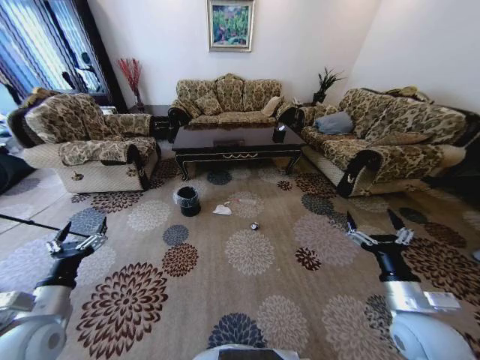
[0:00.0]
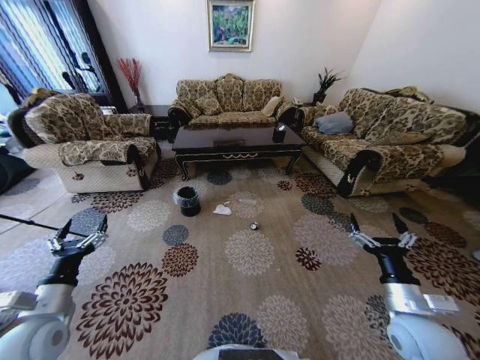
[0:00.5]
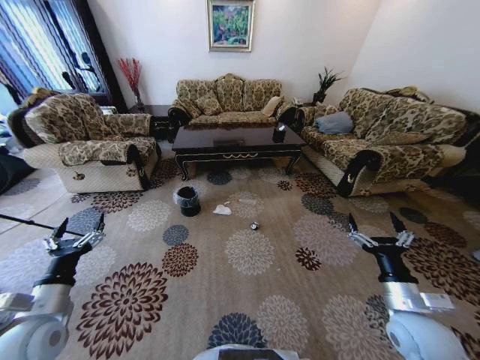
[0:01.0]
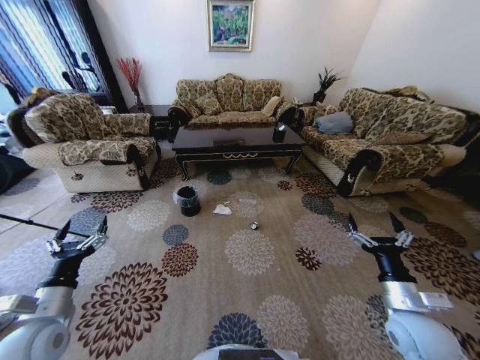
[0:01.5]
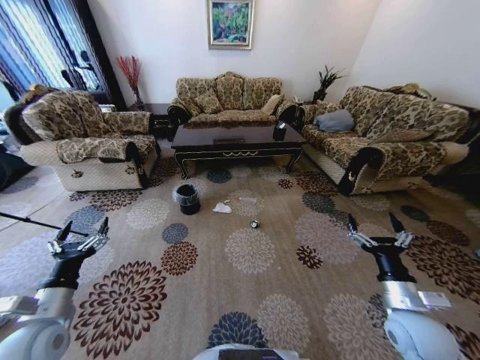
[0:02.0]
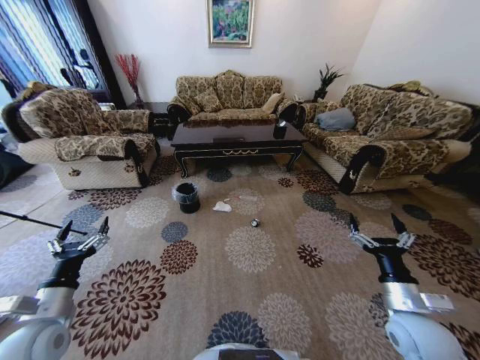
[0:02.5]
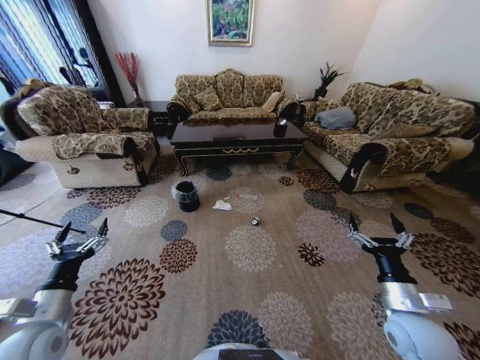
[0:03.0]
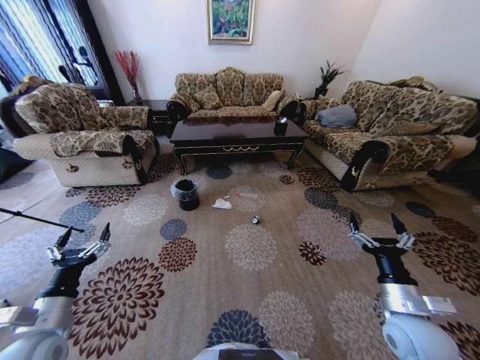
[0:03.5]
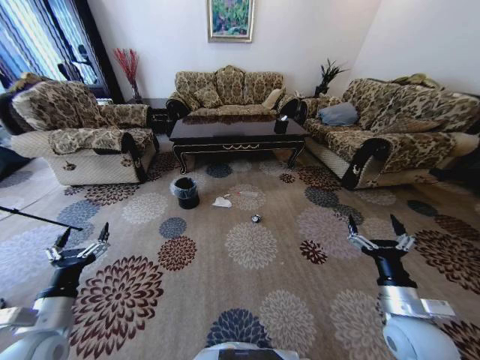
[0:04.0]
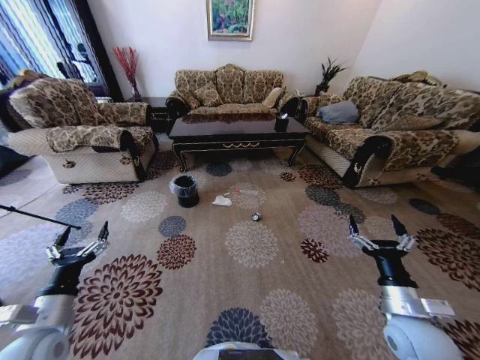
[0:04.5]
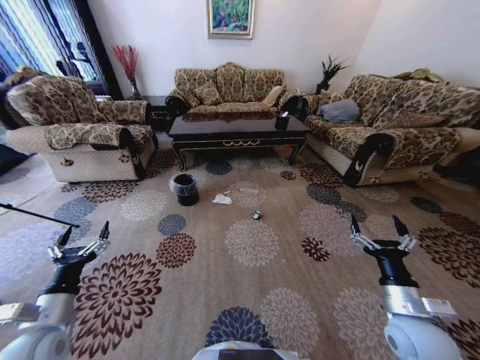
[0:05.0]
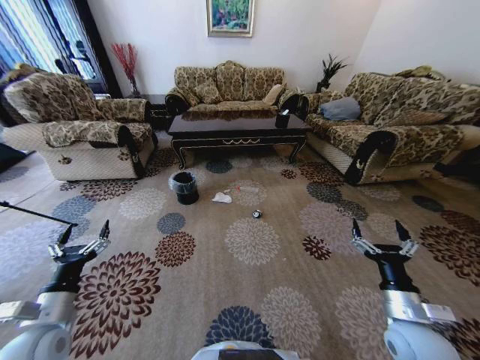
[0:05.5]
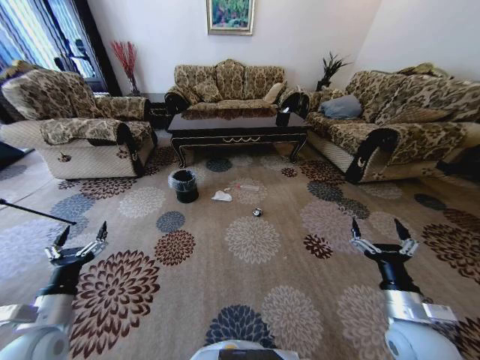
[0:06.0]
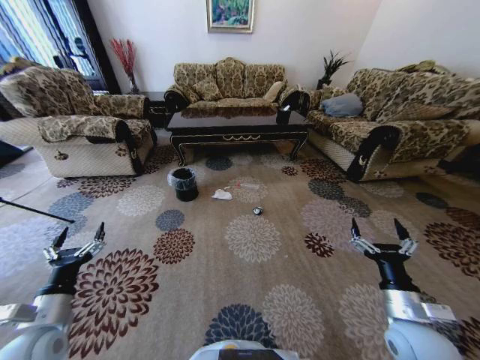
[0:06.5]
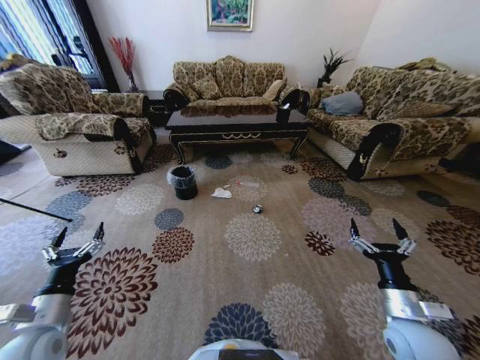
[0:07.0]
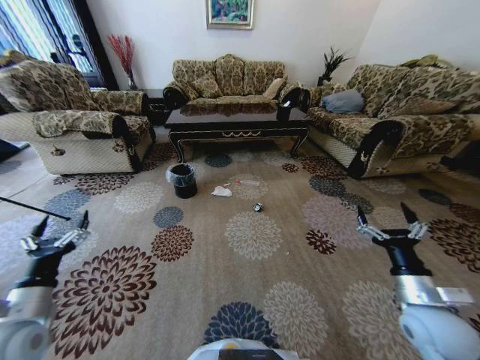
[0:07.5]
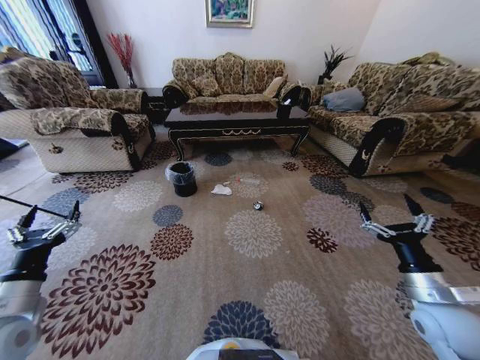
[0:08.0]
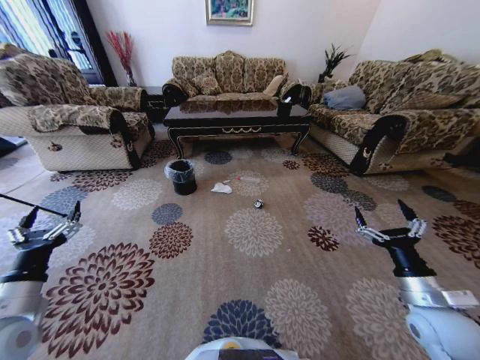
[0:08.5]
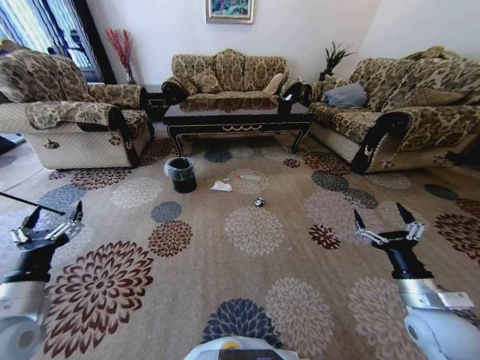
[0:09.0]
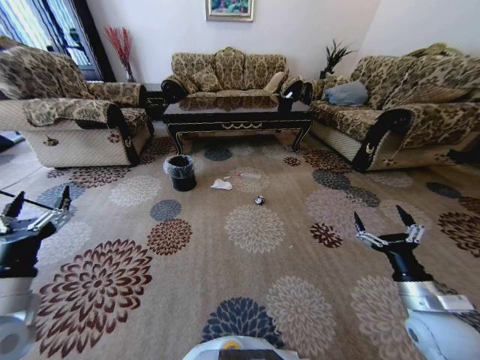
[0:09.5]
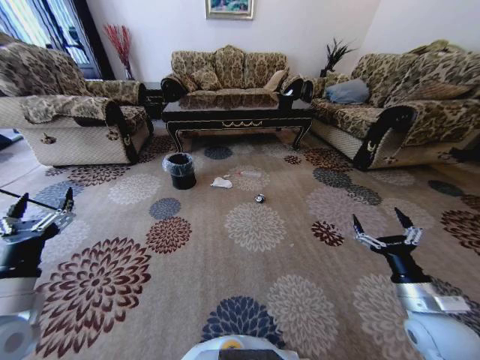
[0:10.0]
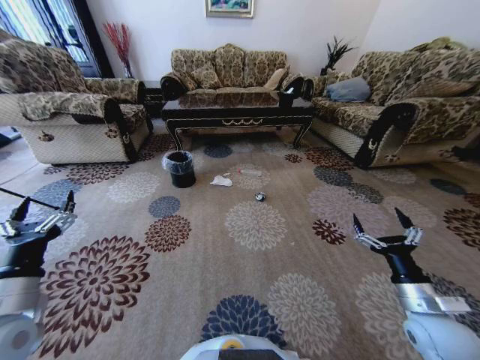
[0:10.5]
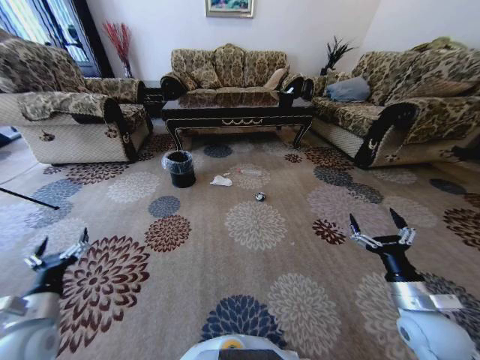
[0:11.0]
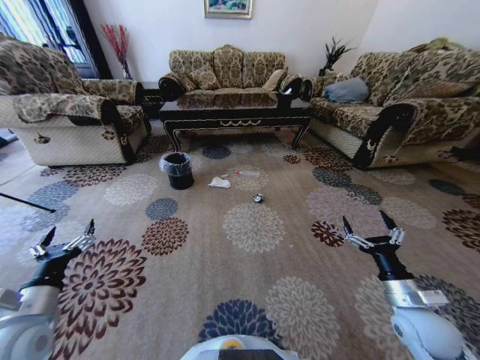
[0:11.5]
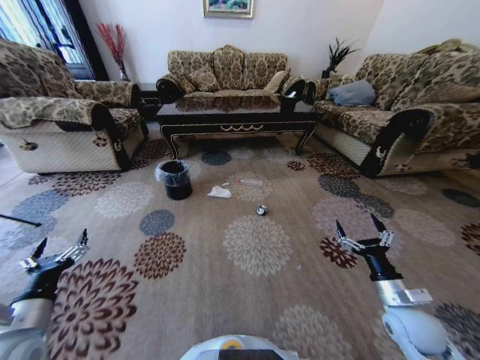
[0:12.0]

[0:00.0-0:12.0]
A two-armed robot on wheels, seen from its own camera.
Task of the whole recording: Move to the front of the table and pick up the trash from the floor, then place it into the trash bin.
0:06.0 to 0:08.0: The left gripper is displaced upward by approximately 5 cm. The right gripper goes about 5 cm to the right.
0:10.0 to 0:12.0: The left gripper moves downward, about 5 cm.

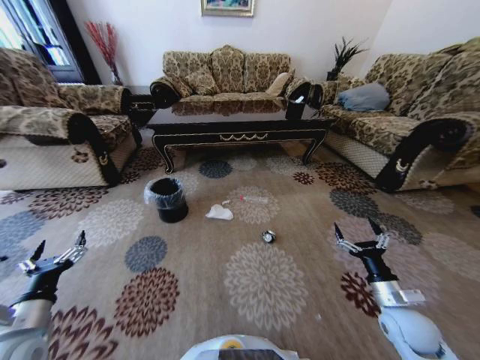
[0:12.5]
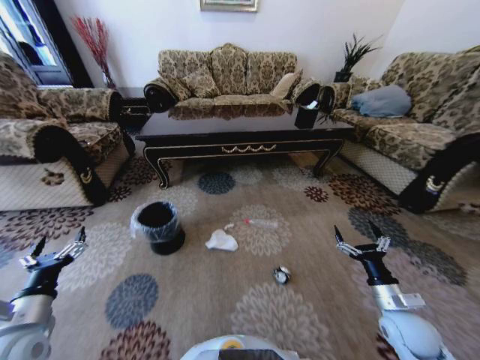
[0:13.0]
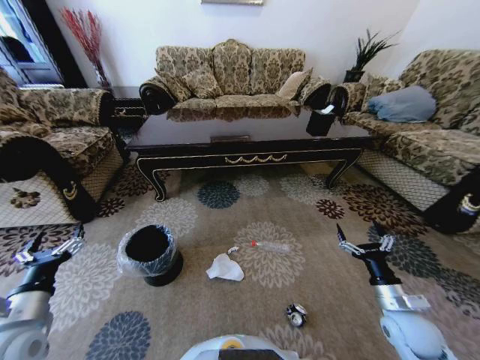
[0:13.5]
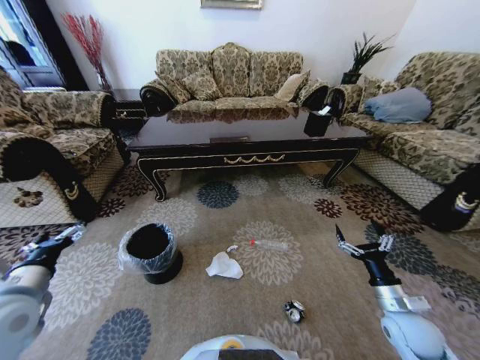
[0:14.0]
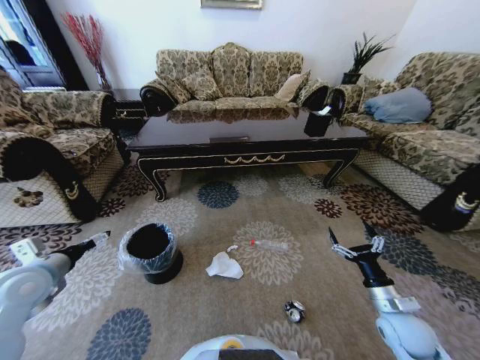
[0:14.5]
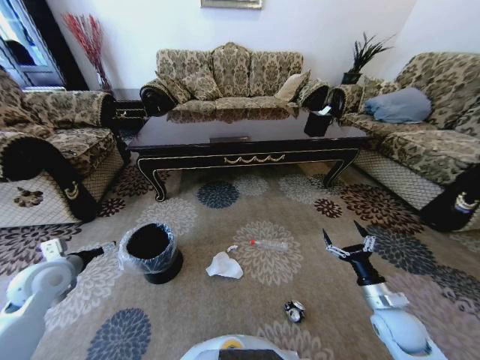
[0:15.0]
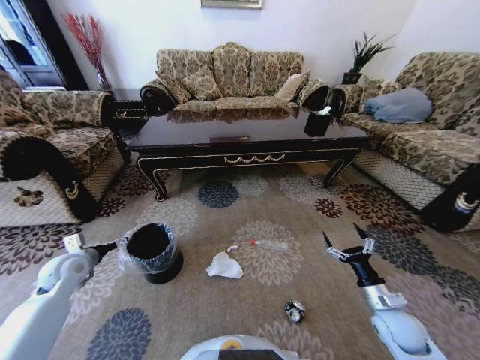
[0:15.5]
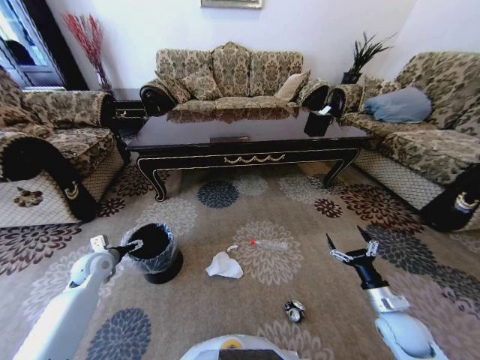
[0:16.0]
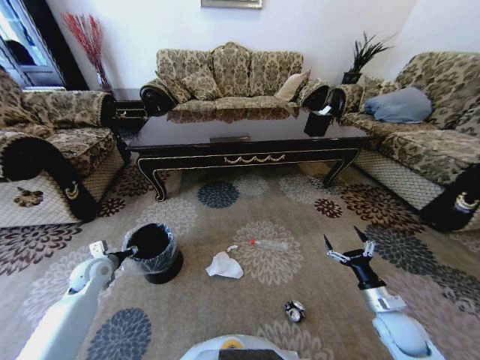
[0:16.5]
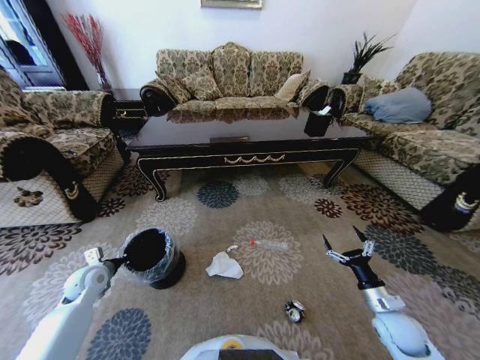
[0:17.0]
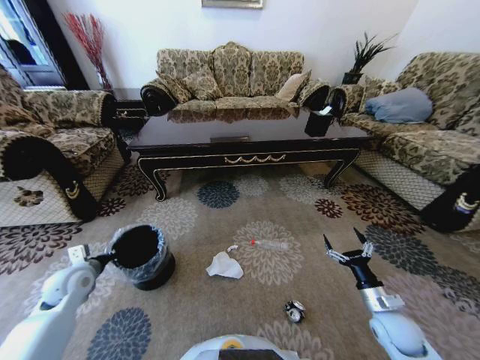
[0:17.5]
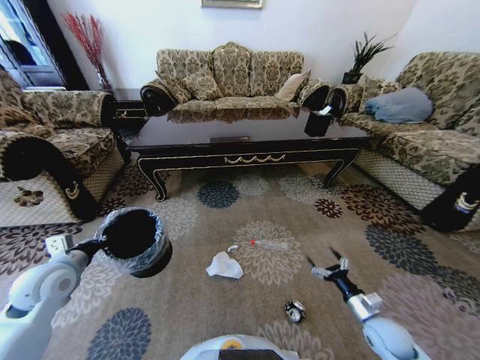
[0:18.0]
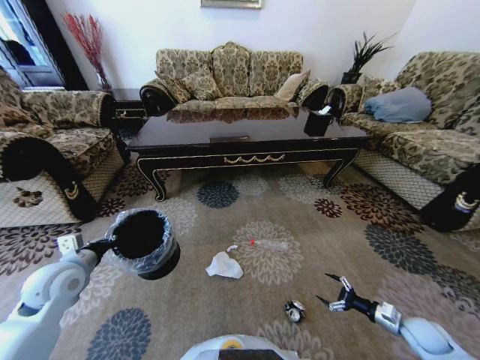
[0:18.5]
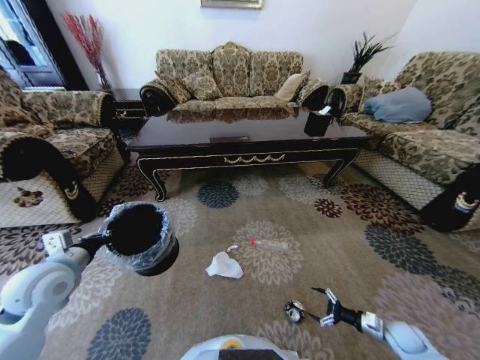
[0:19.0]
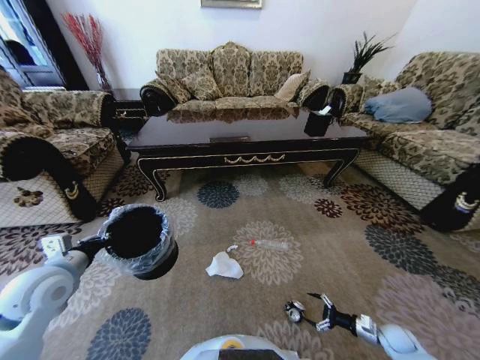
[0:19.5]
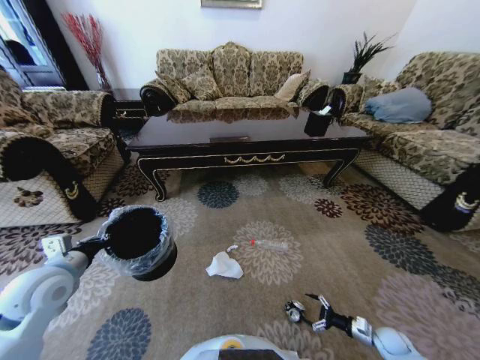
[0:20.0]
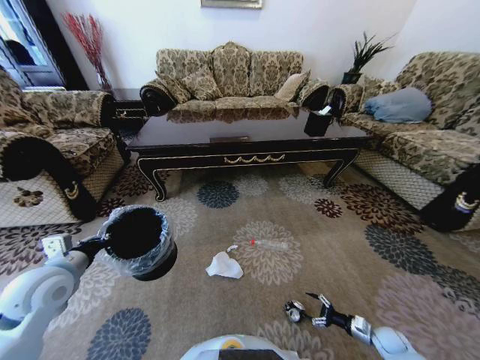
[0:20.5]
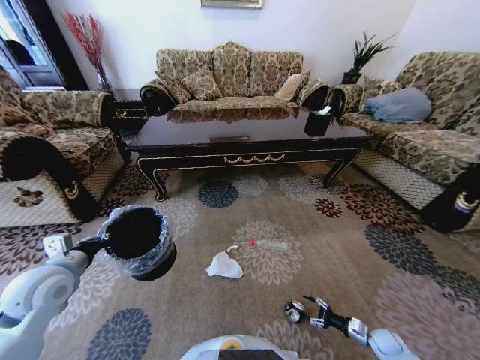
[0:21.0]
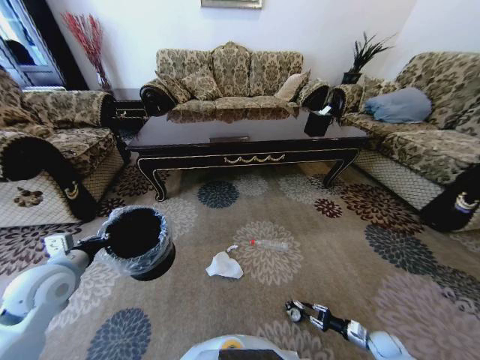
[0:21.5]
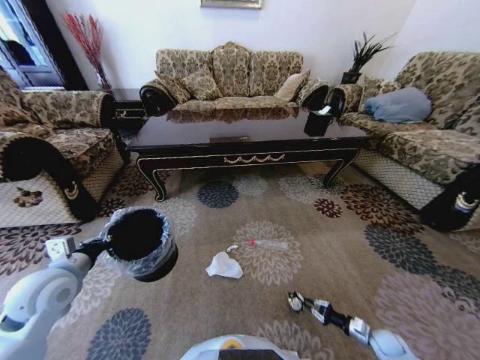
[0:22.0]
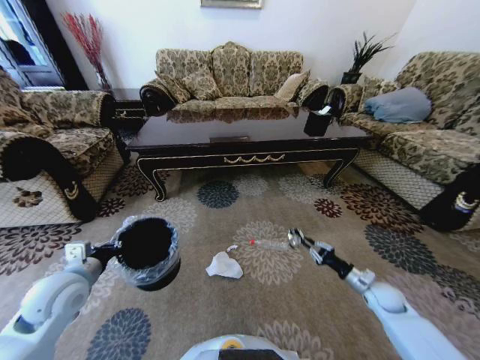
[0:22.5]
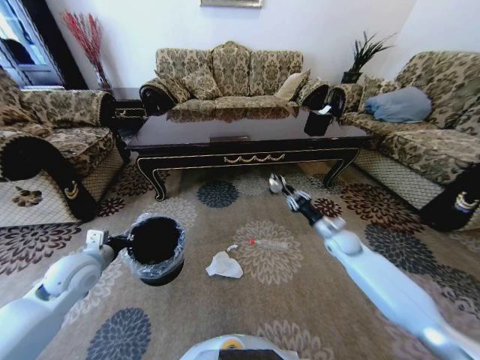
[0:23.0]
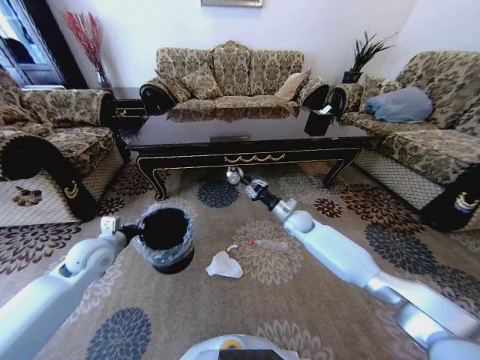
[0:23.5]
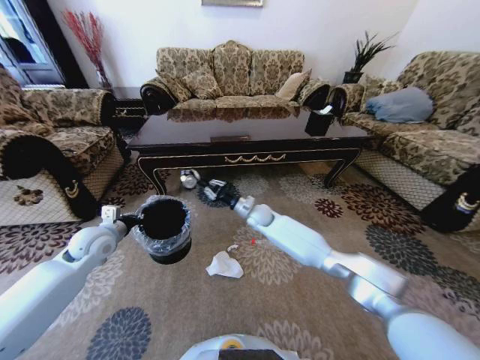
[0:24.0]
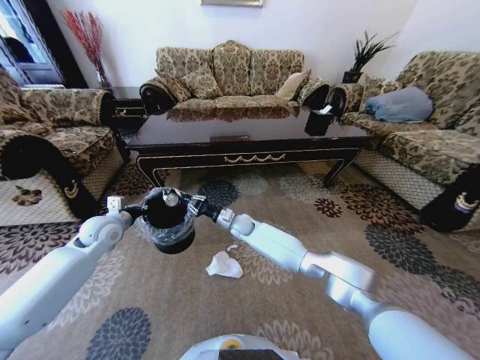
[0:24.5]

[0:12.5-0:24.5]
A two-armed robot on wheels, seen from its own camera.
Task of the whole recording: Move to the front of the table and pick up the trash from the floor, then place it into the trash bin.
0:12.5 to 0:14.5: The left gripper shifts approximately 15 cm forward and upward.
0:14.5 to 0:16.5: The left gripper moves downward and forward, some 20 cm, and closes up.
0:16.5 to 0:18.5: The right gripper travels to the right and downward by roughly 15 cm. Meanwhile the left gripper goes some 15 cm upward and backward, and closes its fingers.
0:18.5 to 0:20.5: The right gripper shifts about 10 cm downward.
0:20.5 to 0:22.5: The right gripper goes some 20 cm upward and forward, and closes its fingers.
0:22.5 to 0:24.5: The right gripper moves to the left and forward, some 50 cm, while the left gripper travels forward by roughly 15 cm.

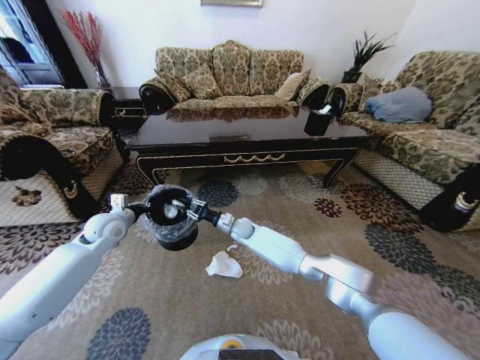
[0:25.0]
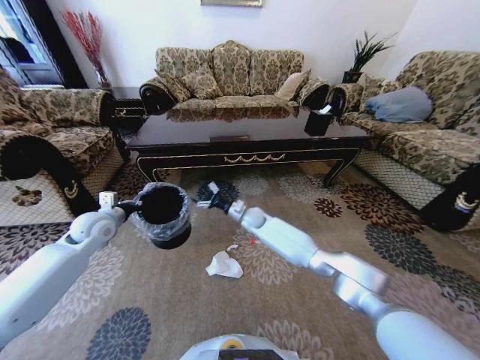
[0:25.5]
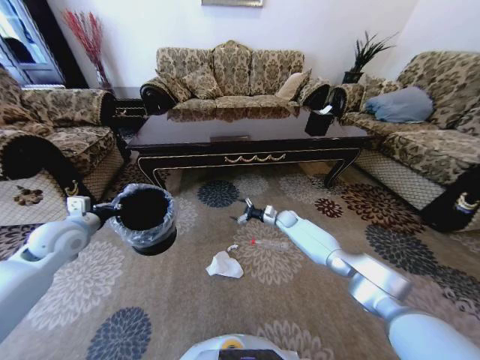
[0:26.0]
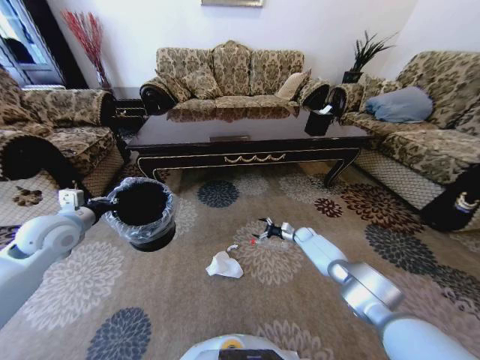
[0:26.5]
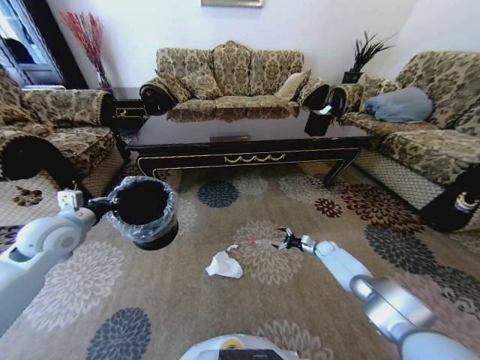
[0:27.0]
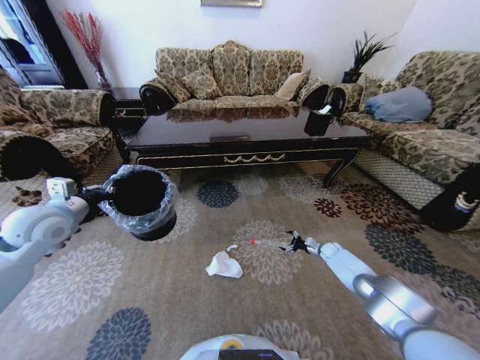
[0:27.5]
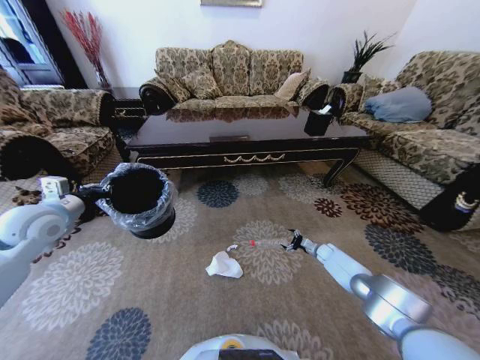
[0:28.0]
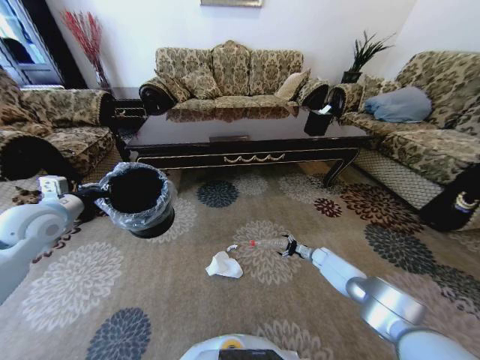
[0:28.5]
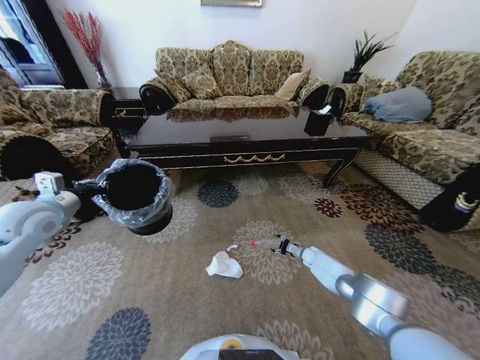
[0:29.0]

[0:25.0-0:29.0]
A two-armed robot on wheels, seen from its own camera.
Task of the whole recording: Move to the front of the table and pick up the trash from the floor, then place it into the trash bin.
0:25.0 to 0:27.0: The right gripper shifts about 40 cm to the right, and opens up. Meanwhile the left gripper heads backward and upward, covering approximately 10 cm.
0:27.0 to 0:29.0: The right gripper heads to the left, covering roughly 5 cm; the left gripper changes place by some 5 cm.
